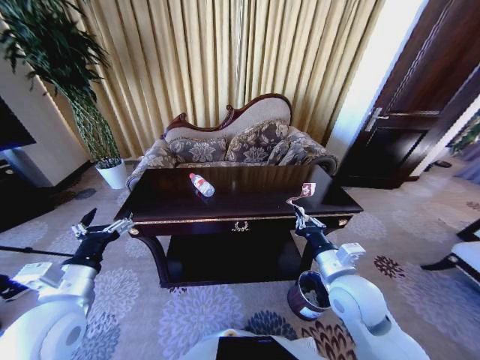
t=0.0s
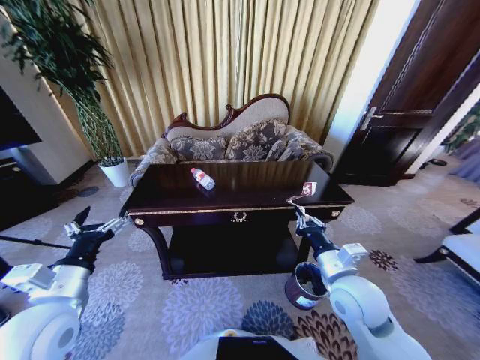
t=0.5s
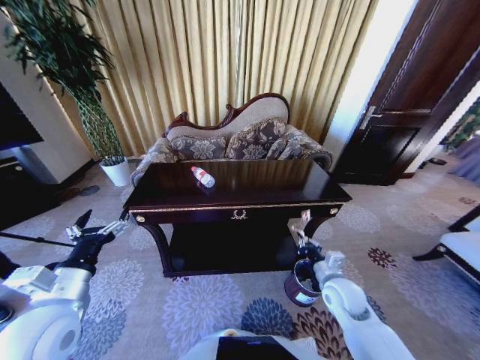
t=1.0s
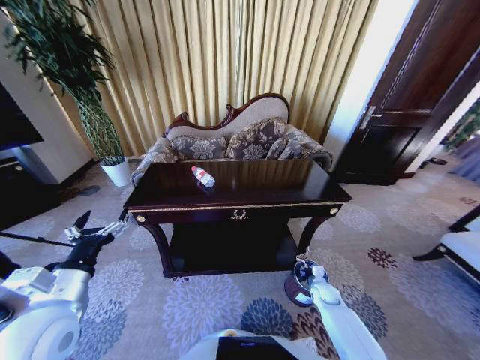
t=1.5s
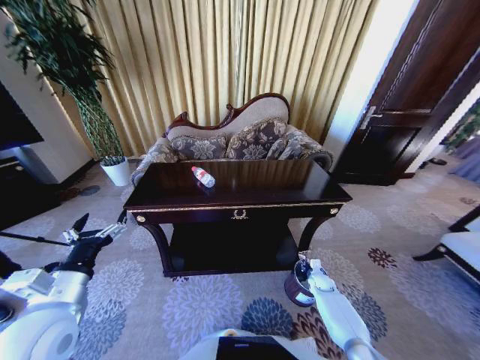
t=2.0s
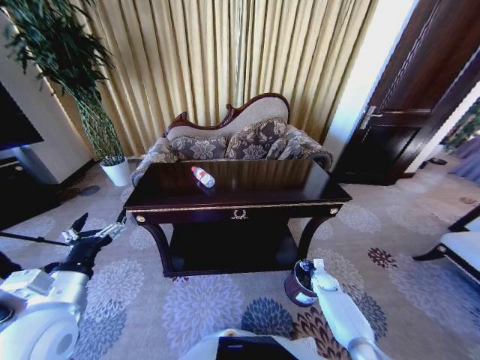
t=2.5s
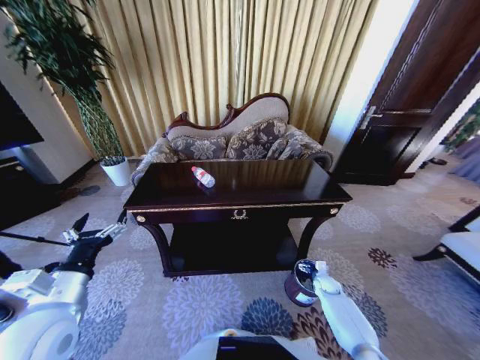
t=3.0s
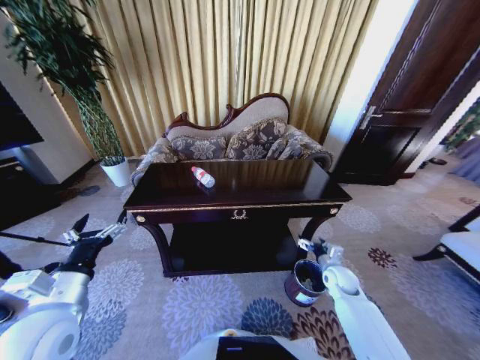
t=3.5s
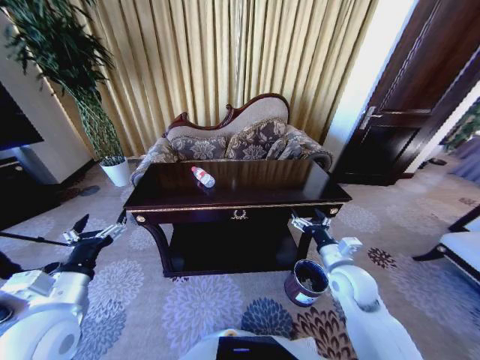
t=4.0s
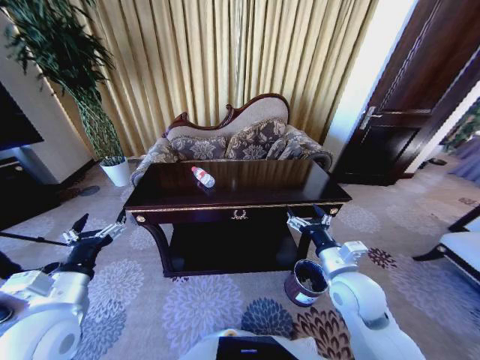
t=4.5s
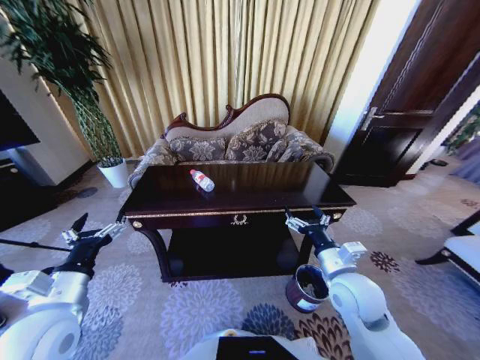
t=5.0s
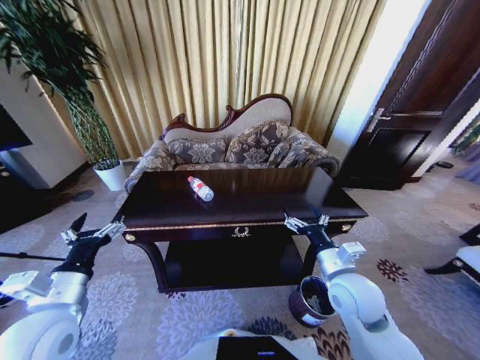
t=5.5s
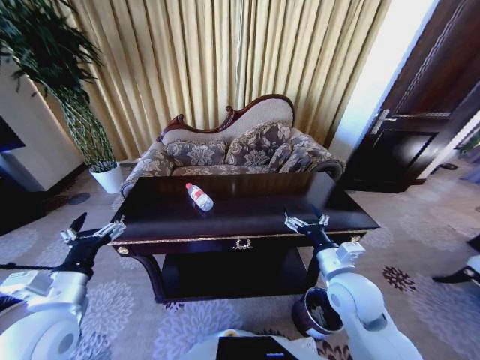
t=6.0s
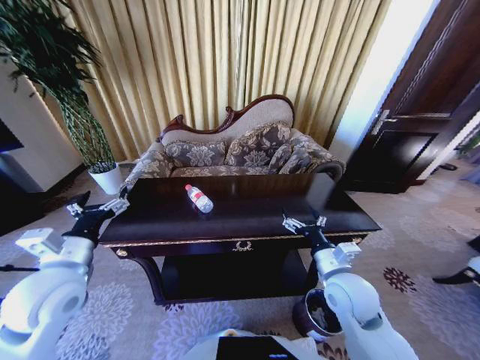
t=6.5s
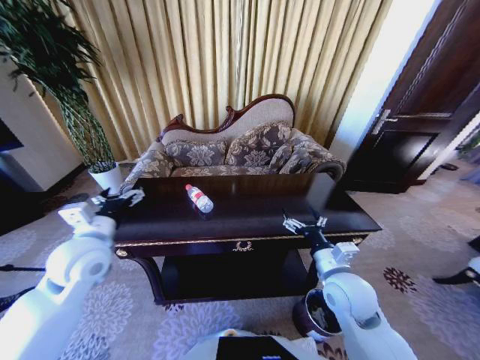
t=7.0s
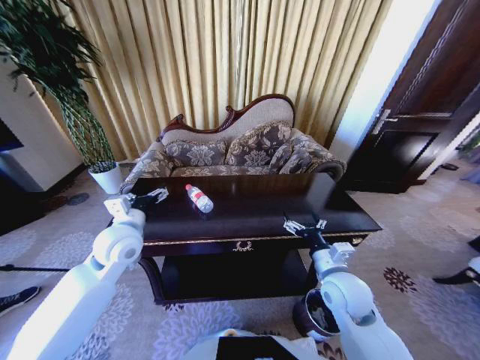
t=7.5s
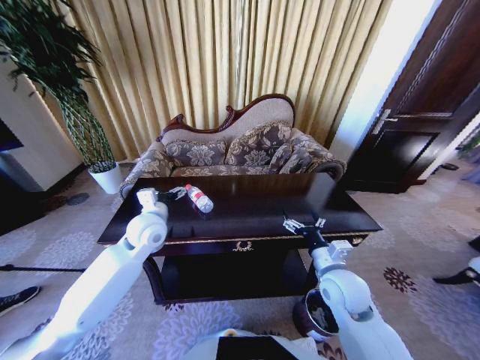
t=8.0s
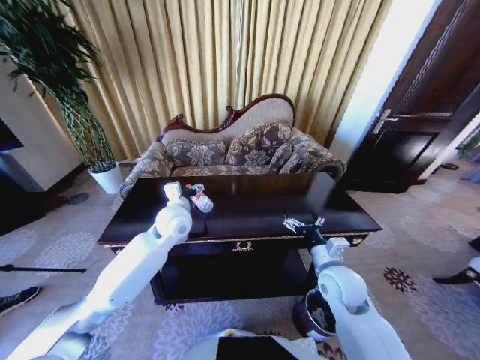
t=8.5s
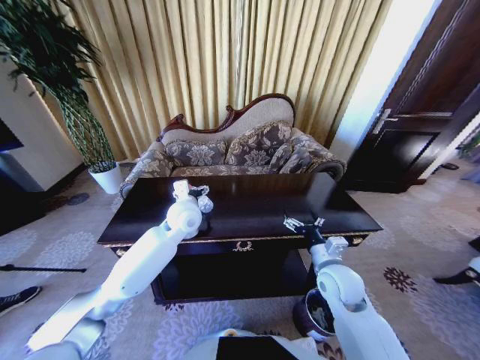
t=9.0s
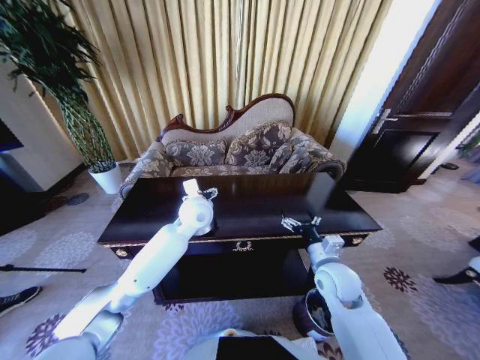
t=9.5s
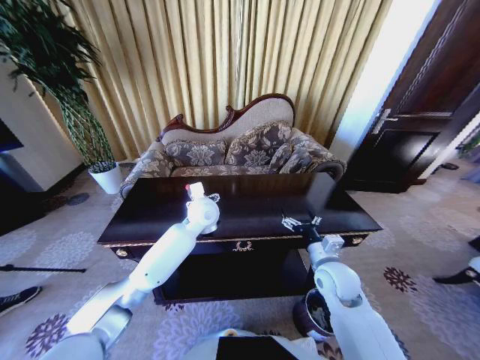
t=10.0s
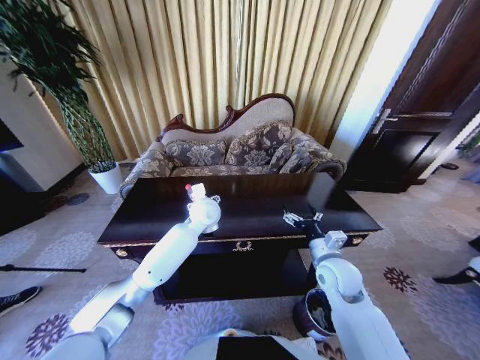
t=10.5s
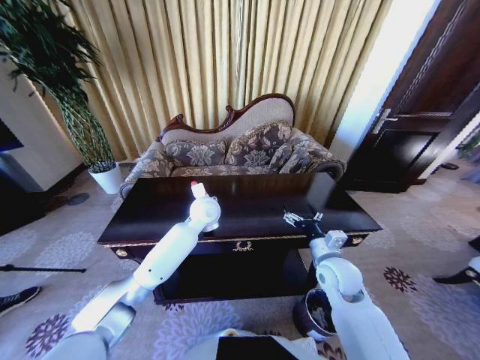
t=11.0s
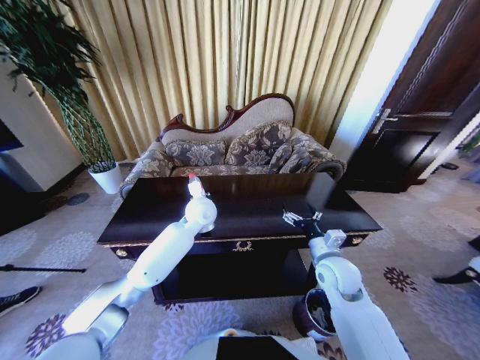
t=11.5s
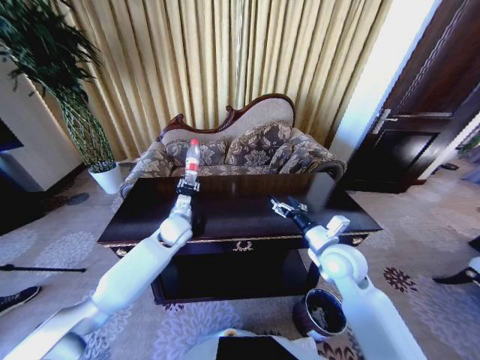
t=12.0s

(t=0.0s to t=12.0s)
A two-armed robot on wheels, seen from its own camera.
Task of the whole recording: Move to the front of the table and place the trash on the table into the trash bin.
t=0.0s - t=2.0s: The right gripper heads downward, covering some 35 cm.
t=2.0s - t=4.0s: The right gripper travels upward by approximately 30 cm, and opens its fingers.
t=4.0s - t=6.0s: The right gripper changes place by approximately 5 cm.
t=6.0s - t=8.0s: The left gripper goes some 25 cm forward and to the right.
t=8.0s - t=10.0s: The left gripper travels to the right and forward by some 15 cm.
t=10.0s - t=12.0s: The right gripper changes place by roughly 5 cm, while the left gripper moves to the left and downward, approximately 10 cm, and closes.

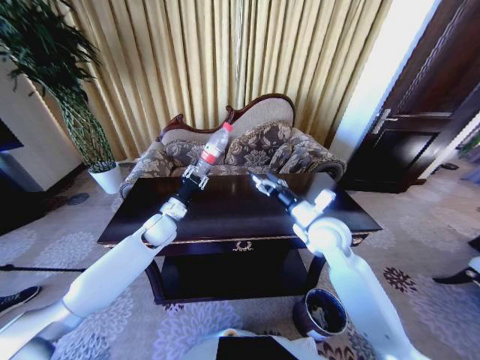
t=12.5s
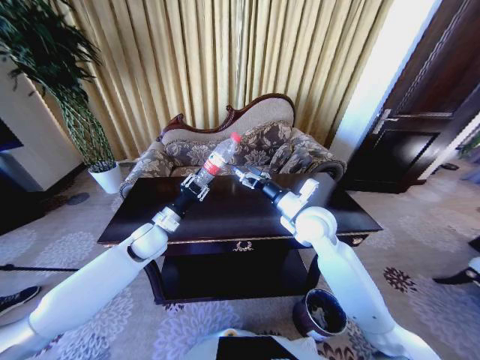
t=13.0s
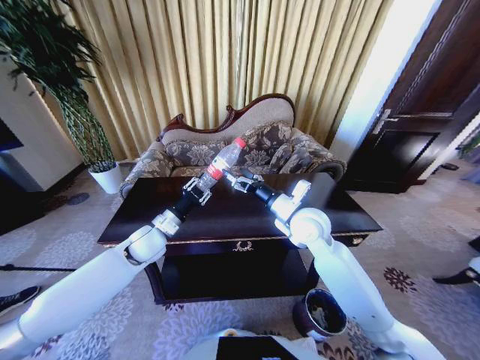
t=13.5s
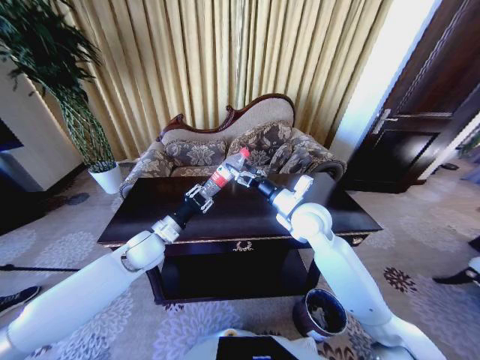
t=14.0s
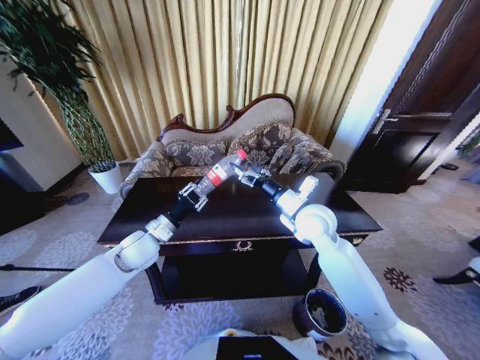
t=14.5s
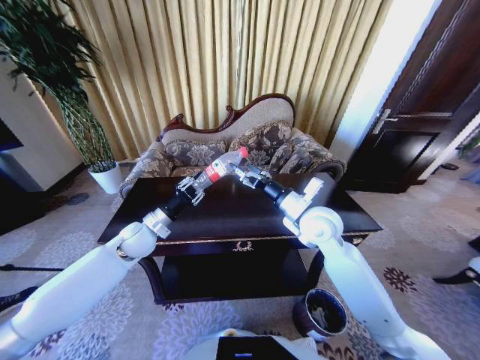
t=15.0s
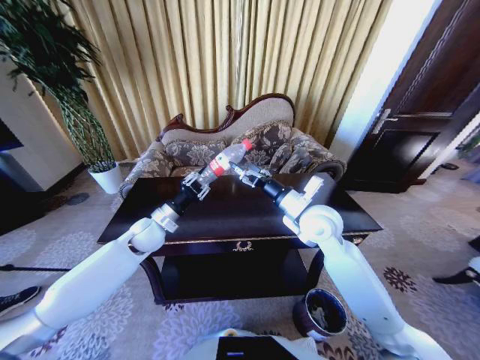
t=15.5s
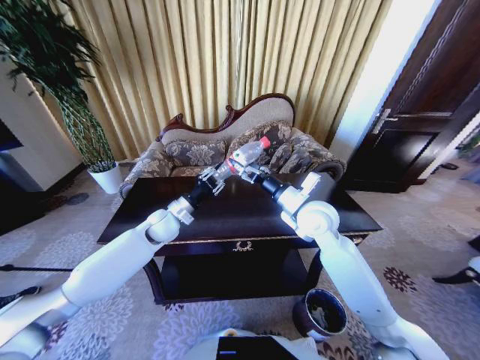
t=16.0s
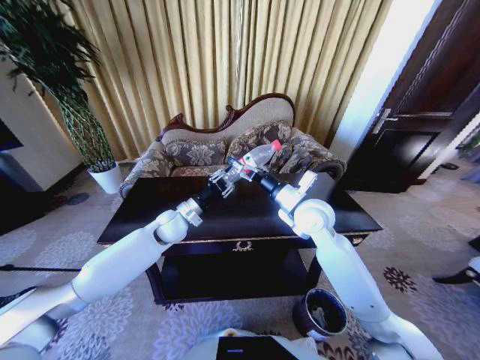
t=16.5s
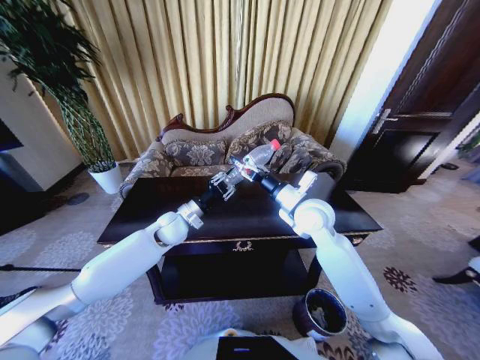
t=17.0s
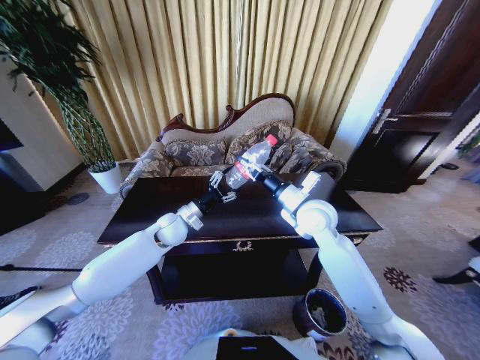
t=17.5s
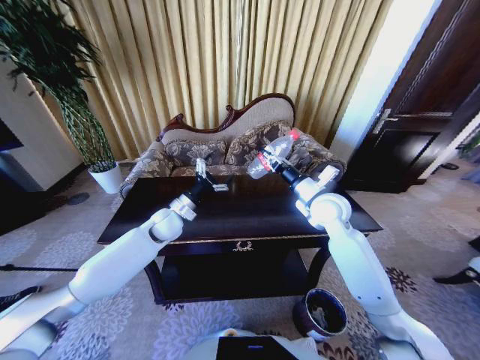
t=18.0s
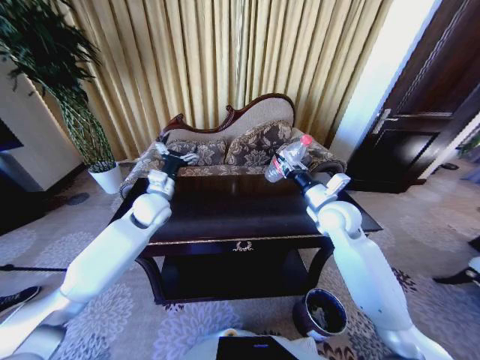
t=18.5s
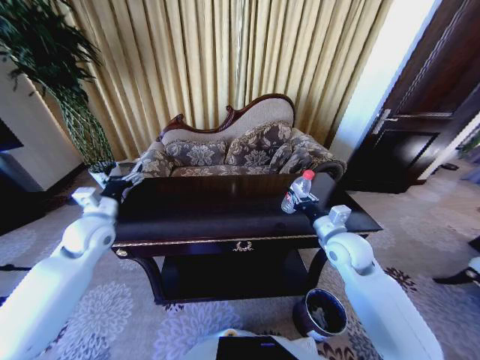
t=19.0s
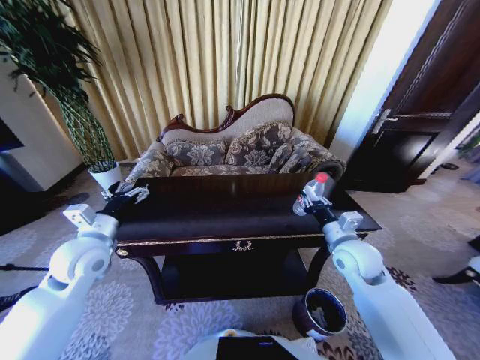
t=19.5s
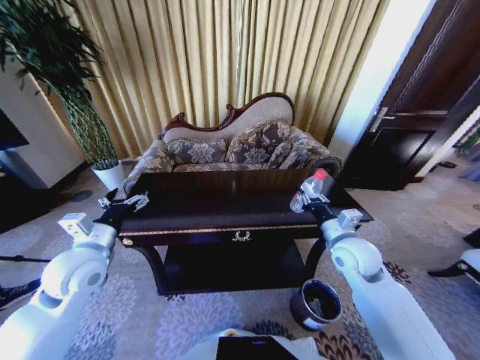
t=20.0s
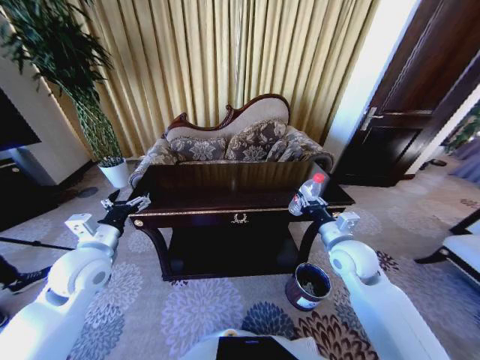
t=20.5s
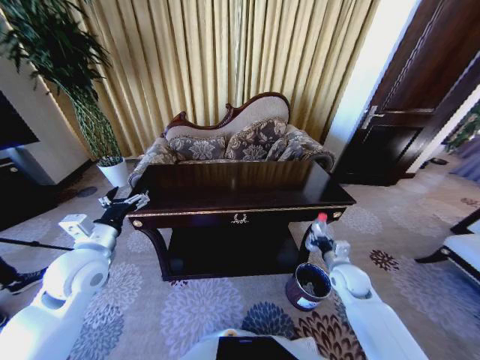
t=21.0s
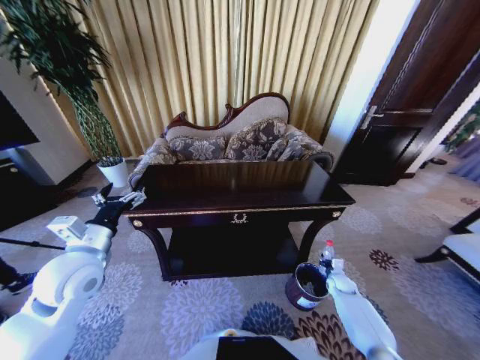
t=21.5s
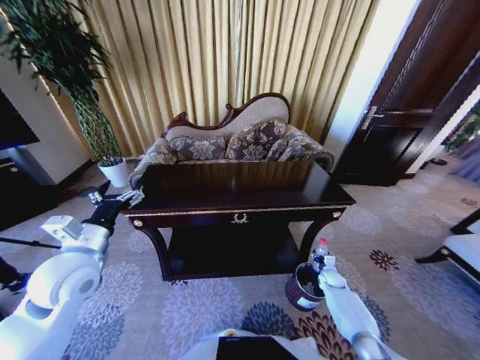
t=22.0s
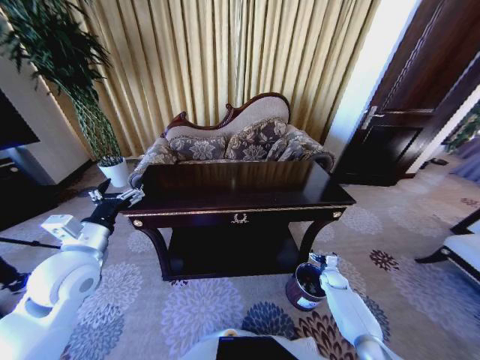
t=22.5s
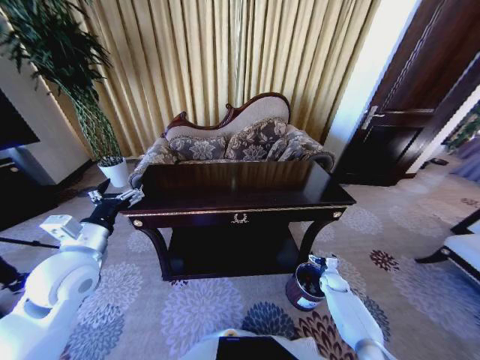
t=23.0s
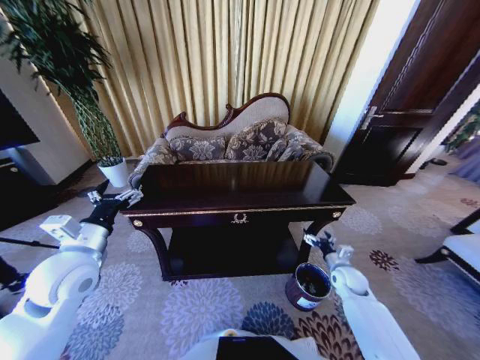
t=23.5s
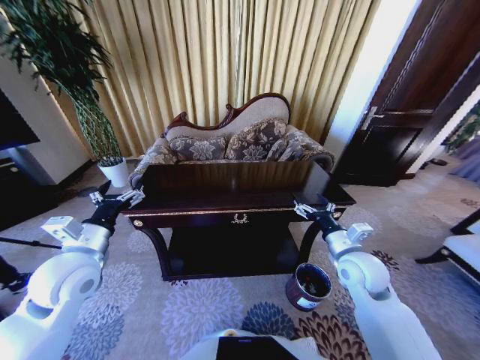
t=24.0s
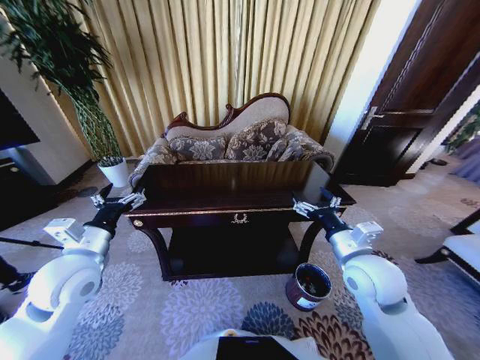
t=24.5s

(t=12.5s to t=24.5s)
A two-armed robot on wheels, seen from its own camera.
Task of the whole recording: Move to the front of the table and place the trash on the table into the trash bin.
t=12.5s - t=14.5s: The left gripper shifts roughly 5 cm backward.
t=14.5s - t=16.5s: The left gripper shifts approximately 10 cm forward and to the right.
t=16.5s - t=18.5s: The right gripper moves to the right, roughly 10 cm, and closes up. Meanwhile the left gripper travels upward by some 5 cm, and opens its fingers.
t=18.5s - t=20.5s: The left gripper moves backward and to the left, approximately 20 cm, while the right gripper is displaced backward and downward by approximately 10 cm.
t=20.5s - t=22.5s: The right gripper shifts approximately 35 cm downward and to the right, and opens its fingers.
t=22.5s - t=24.5s: The right gripper shifts approximately 40 cm upward and to the left.

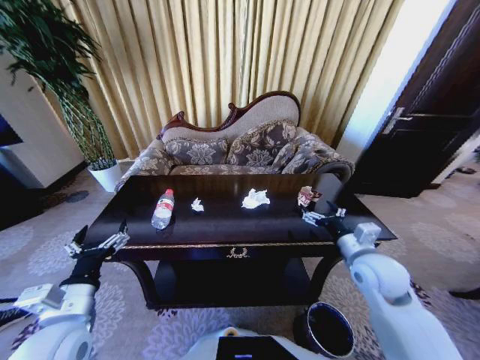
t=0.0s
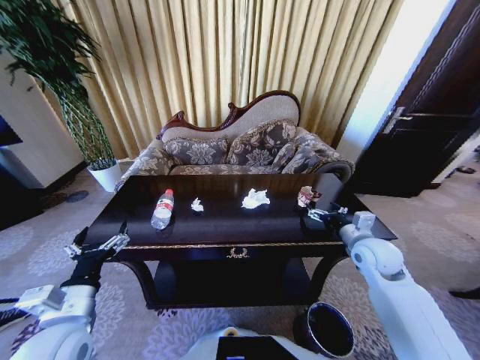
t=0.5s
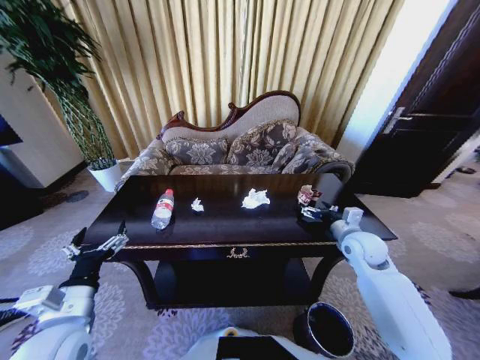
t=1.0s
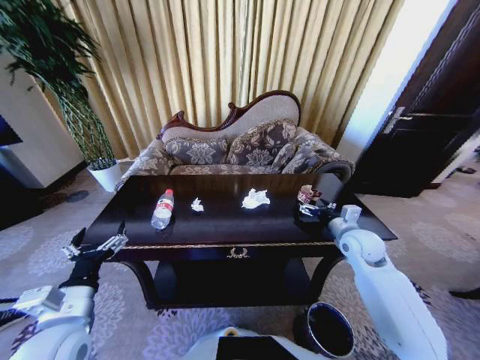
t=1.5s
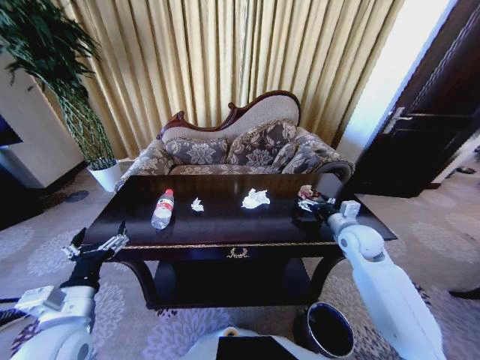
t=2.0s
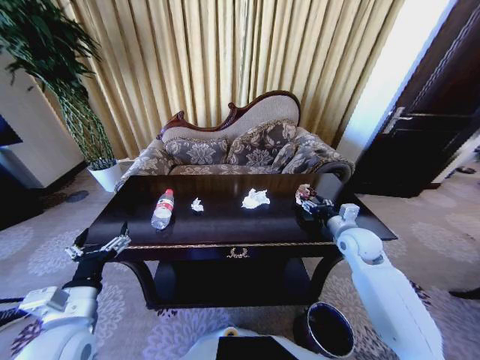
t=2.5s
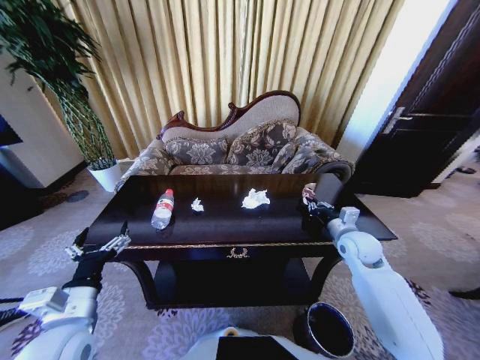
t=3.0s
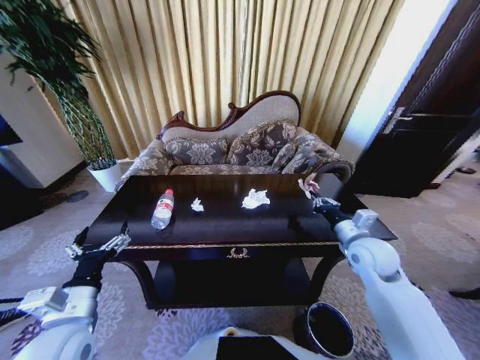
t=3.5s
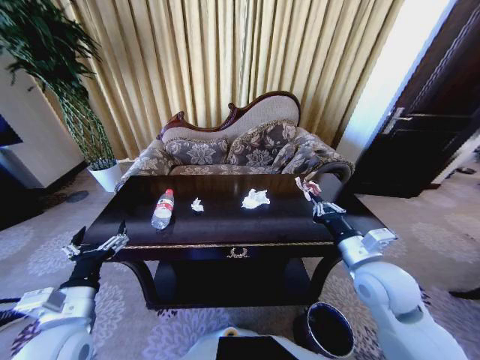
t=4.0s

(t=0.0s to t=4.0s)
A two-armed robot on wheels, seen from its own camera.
Task of the whole recording: Move to the front of the table and place the trash on the table into the trash bin.
t=0.0s - t=2.0s: The right gripper shifts about 10 cm forward.
t=2.0s - t=4.0s: The right gripper shifts about 15 cm backward and to the left, and closes.
